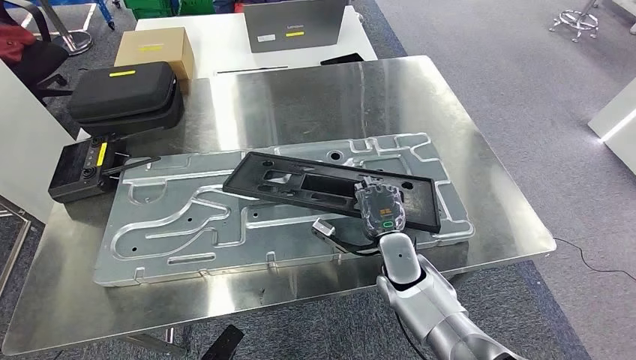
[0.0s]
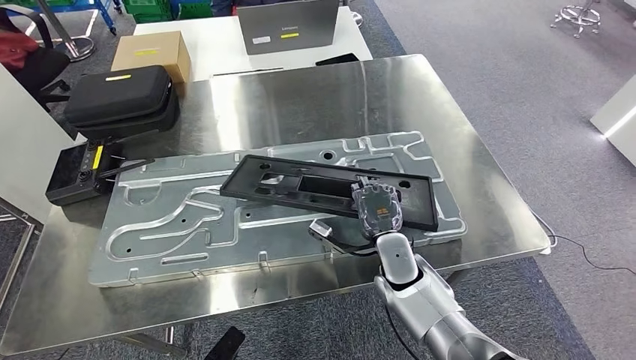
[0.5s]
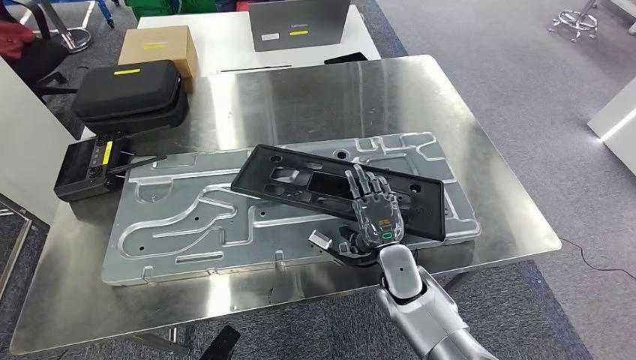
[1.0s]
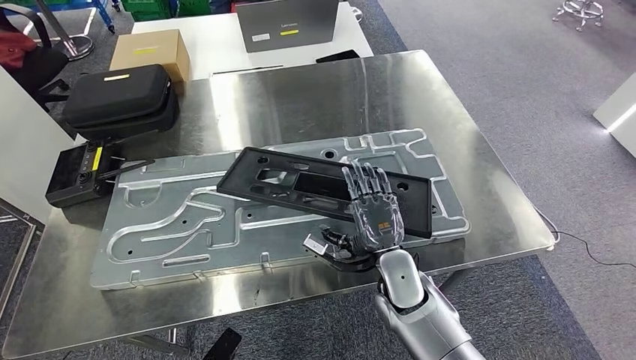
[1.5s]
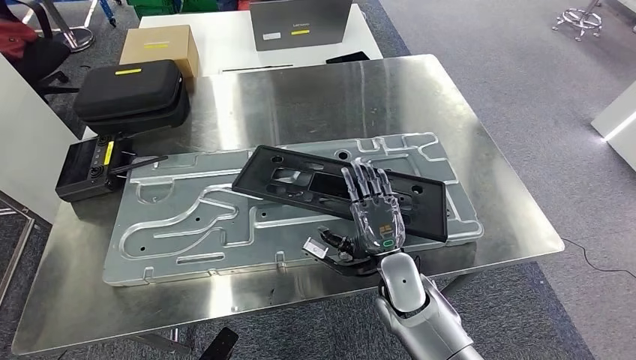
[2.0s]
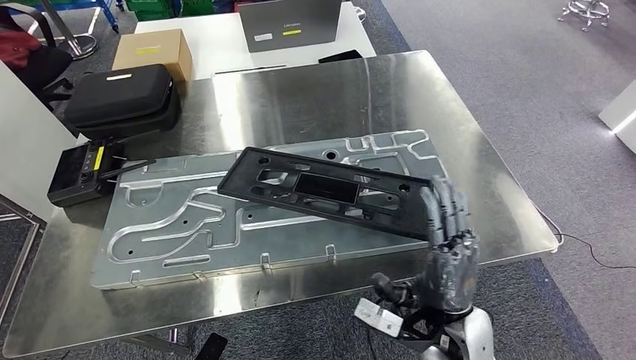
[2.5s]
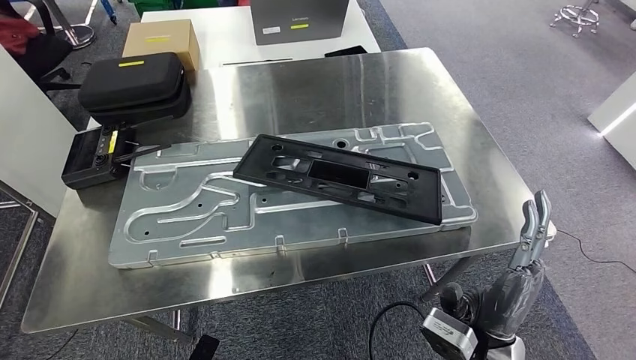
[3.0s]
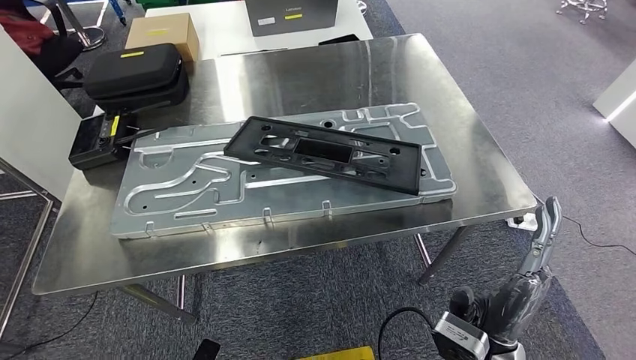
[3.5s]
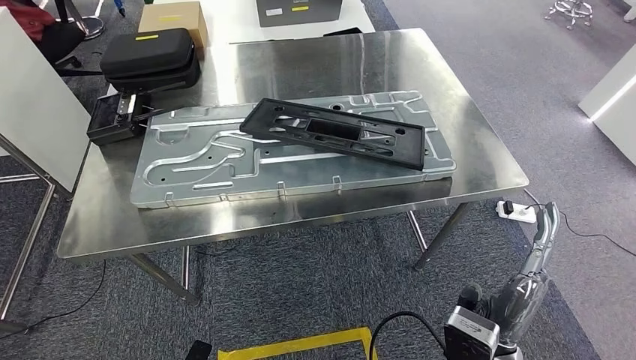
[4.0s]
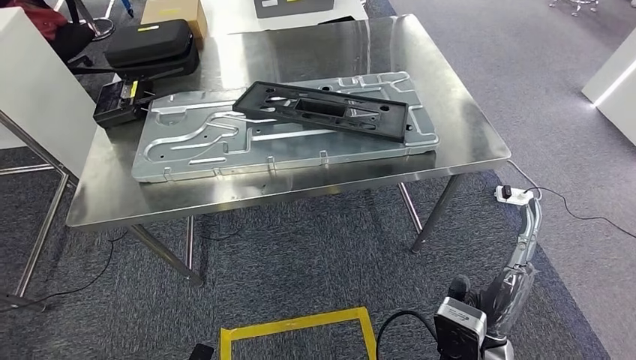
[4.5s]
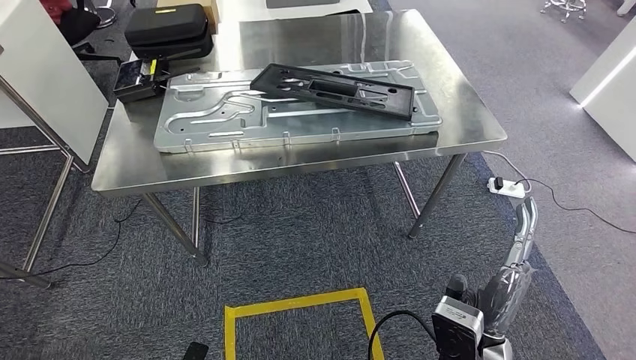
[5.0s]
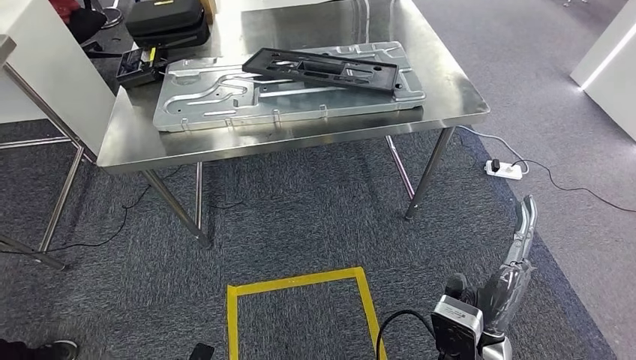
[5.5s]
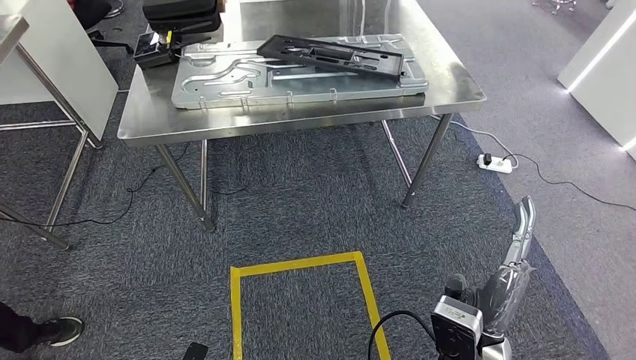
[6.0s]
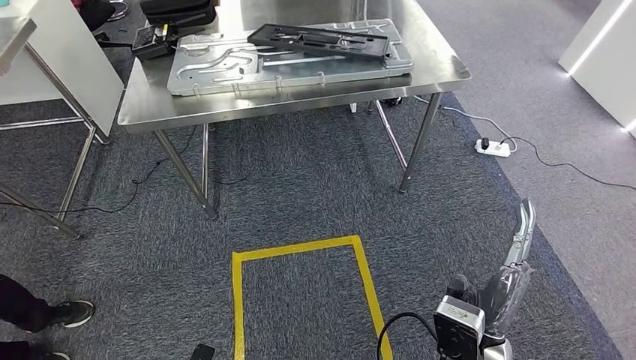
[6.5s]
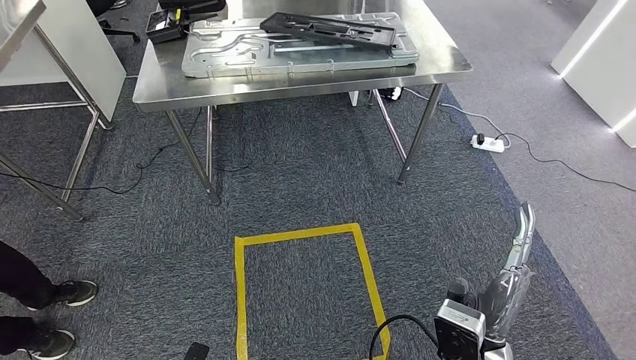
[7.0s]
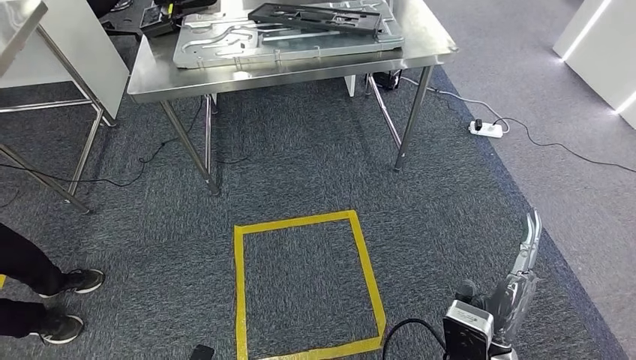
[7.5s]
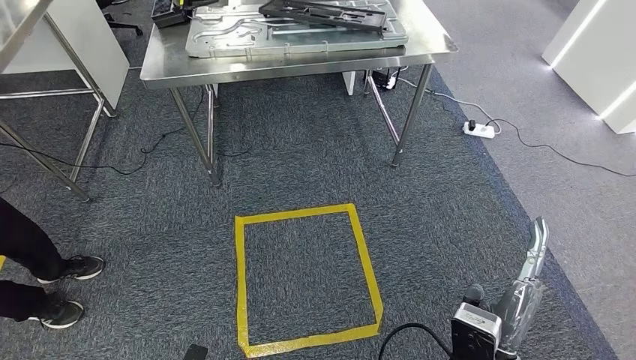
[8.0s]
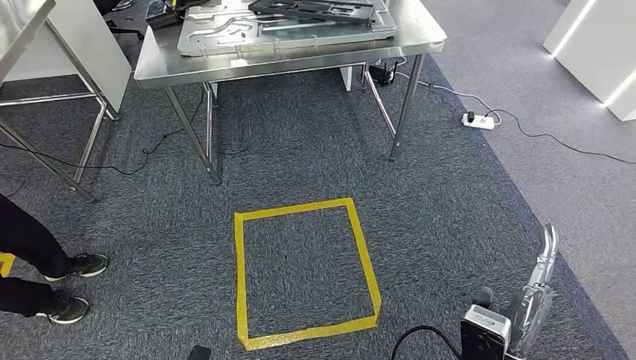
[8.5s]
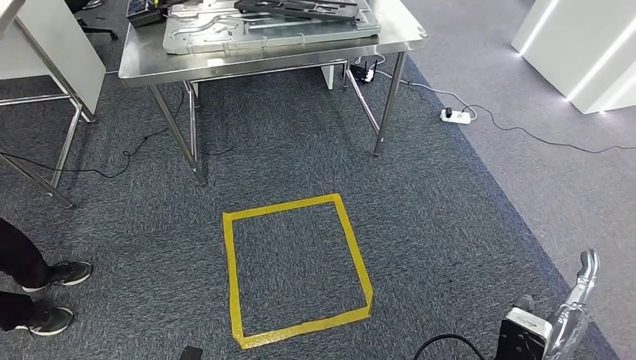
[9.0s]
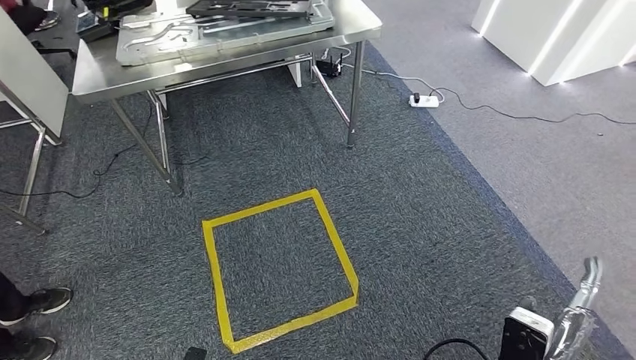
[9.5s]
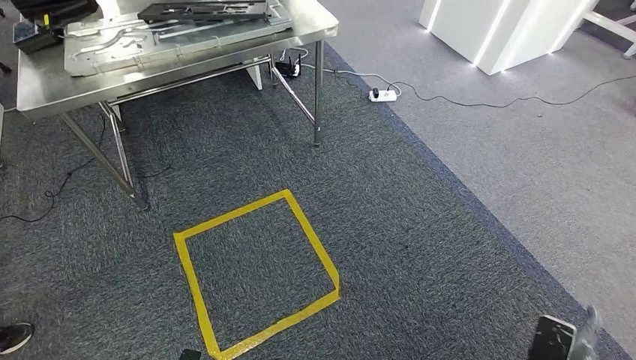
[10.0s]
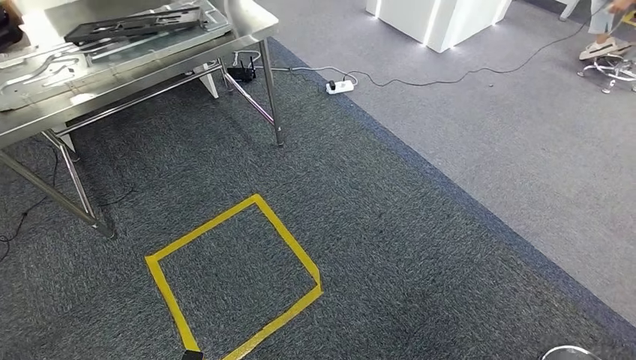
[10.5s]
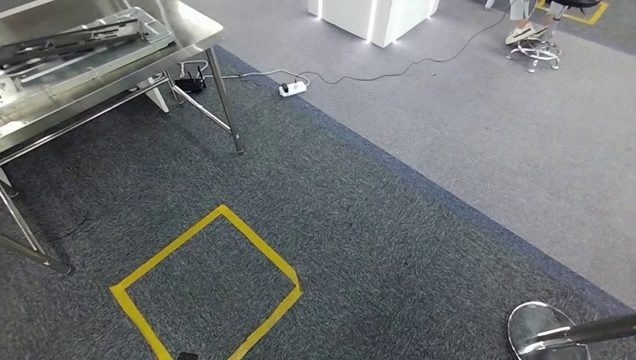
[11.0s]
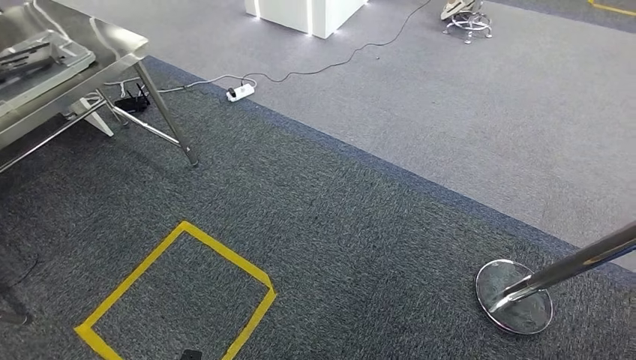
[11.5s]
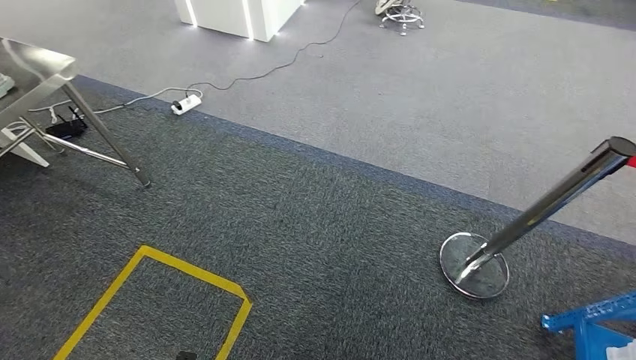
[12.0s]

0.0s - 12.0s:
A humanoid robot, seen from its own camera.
Step, 0.0s - 4.5s: Insert the large material into the corresponding hole on the workbench.

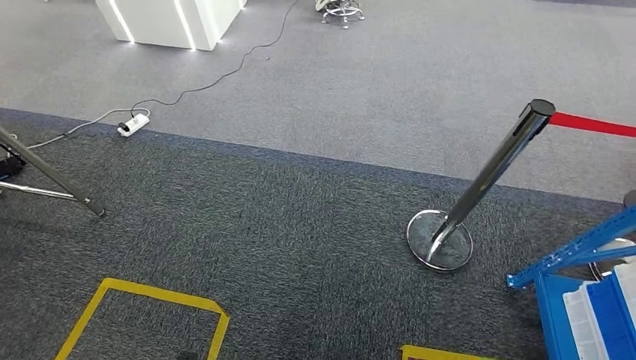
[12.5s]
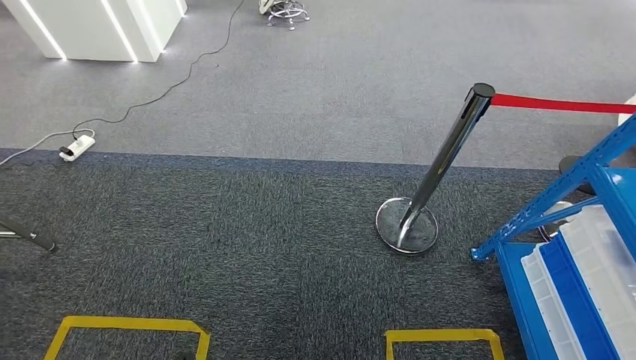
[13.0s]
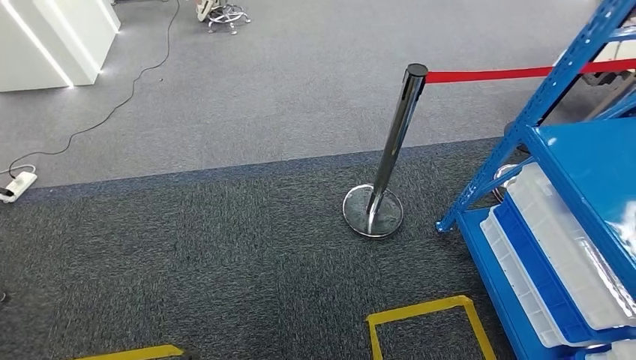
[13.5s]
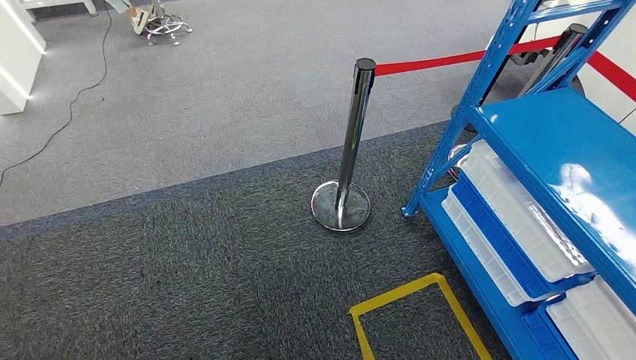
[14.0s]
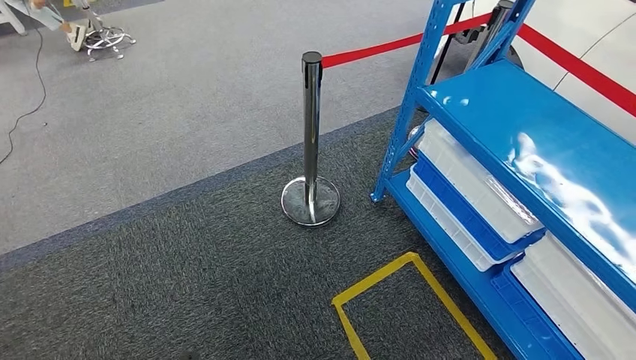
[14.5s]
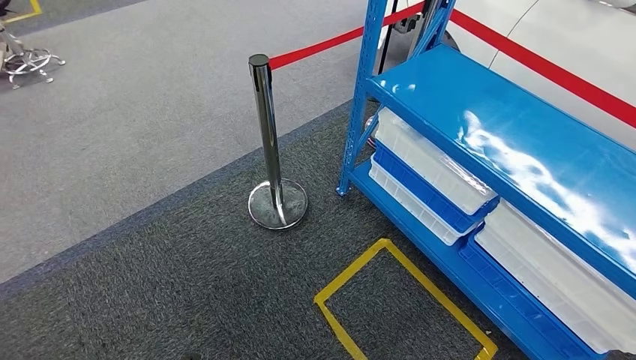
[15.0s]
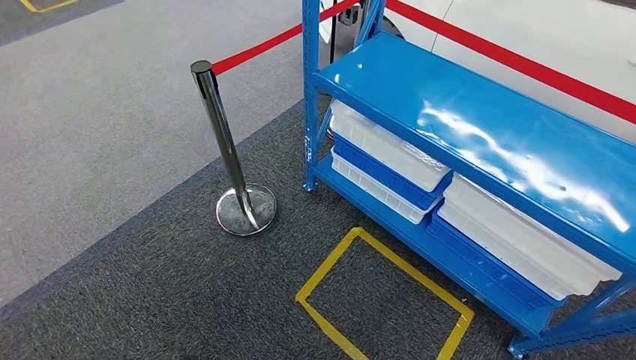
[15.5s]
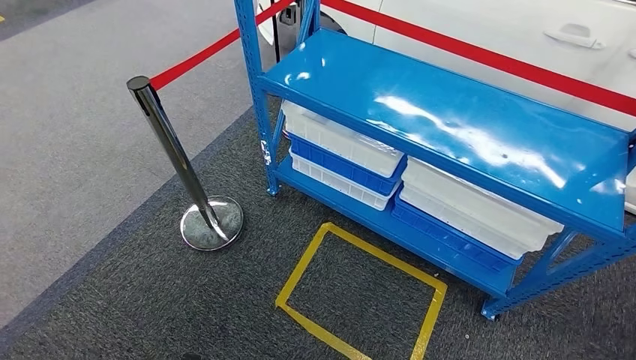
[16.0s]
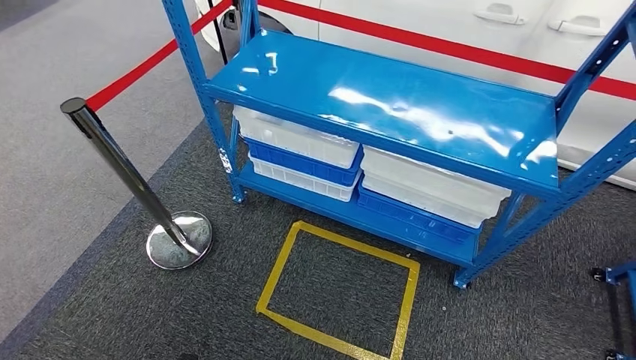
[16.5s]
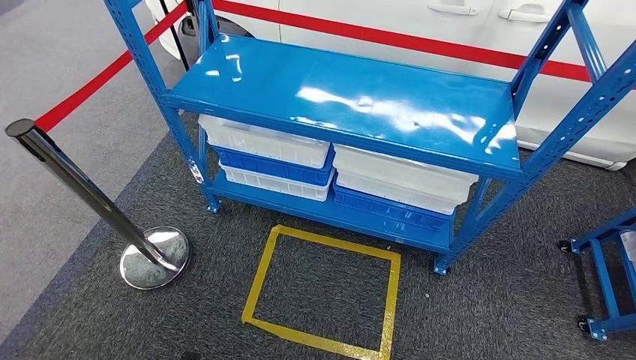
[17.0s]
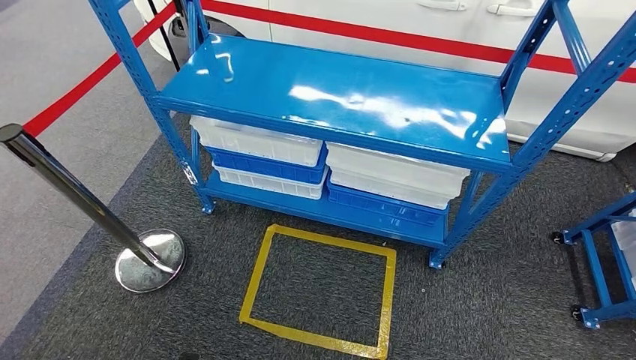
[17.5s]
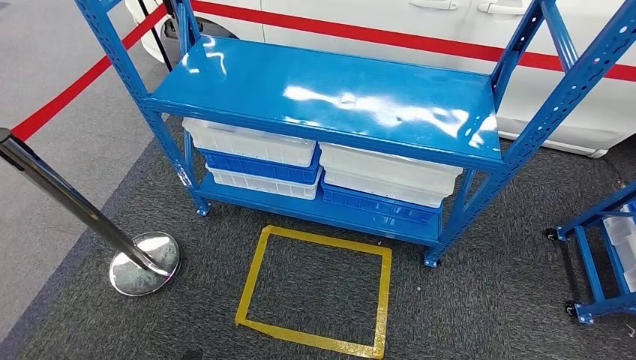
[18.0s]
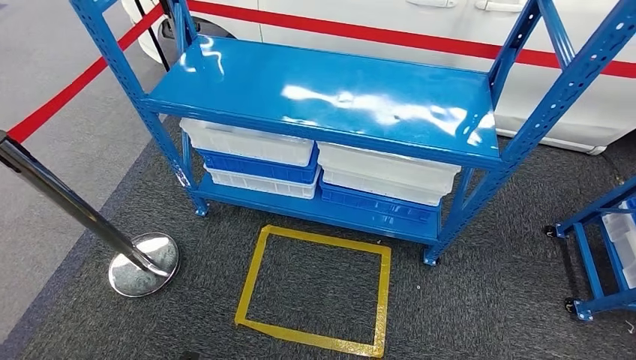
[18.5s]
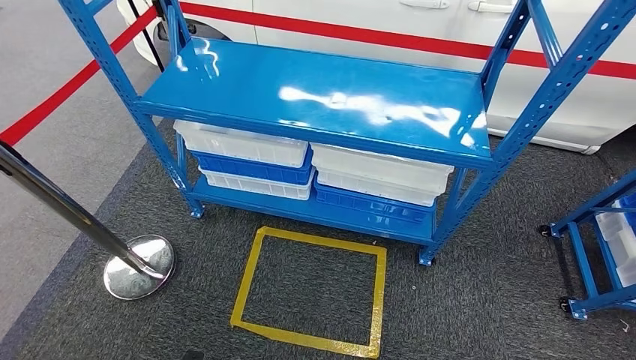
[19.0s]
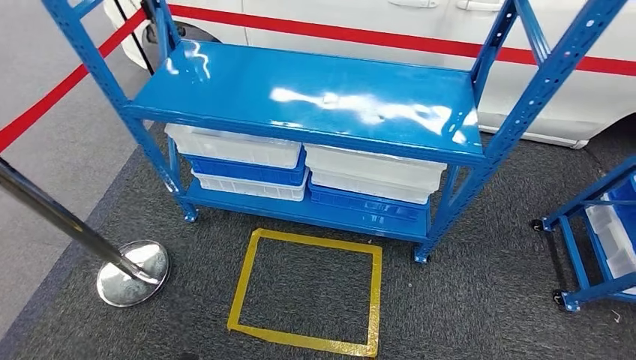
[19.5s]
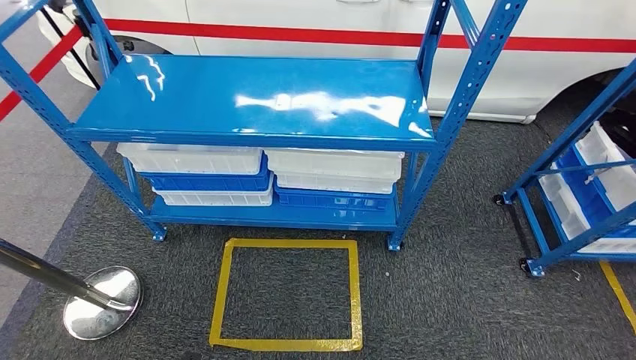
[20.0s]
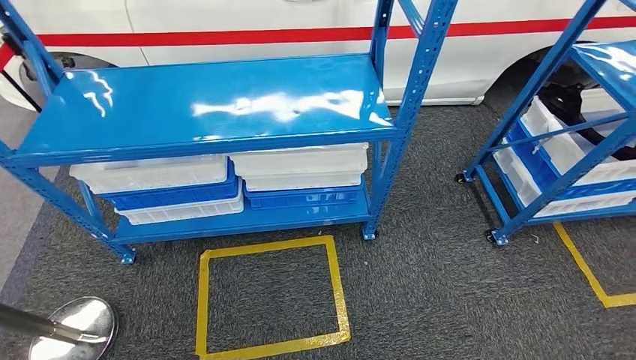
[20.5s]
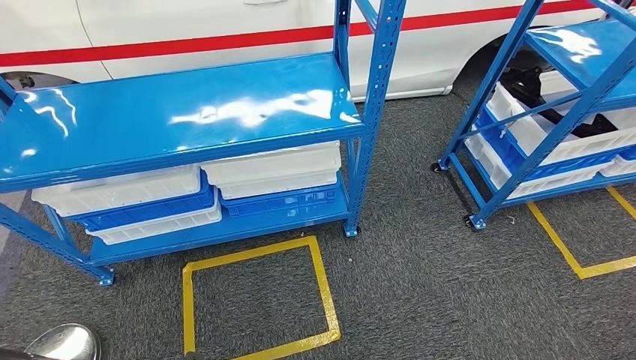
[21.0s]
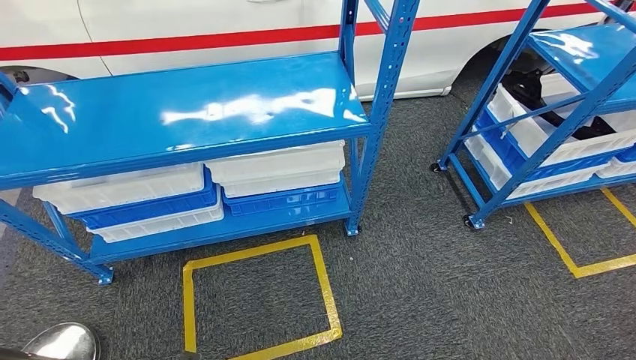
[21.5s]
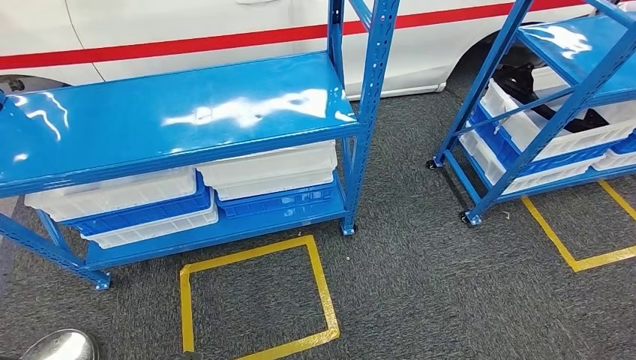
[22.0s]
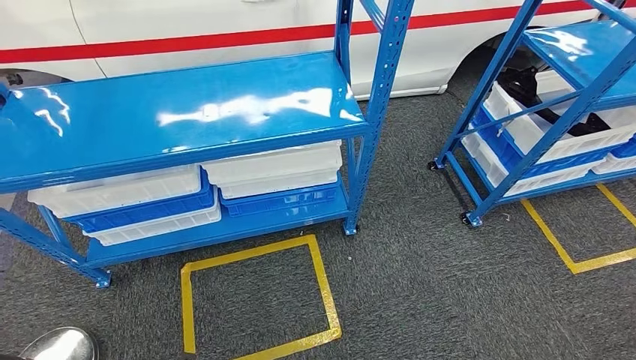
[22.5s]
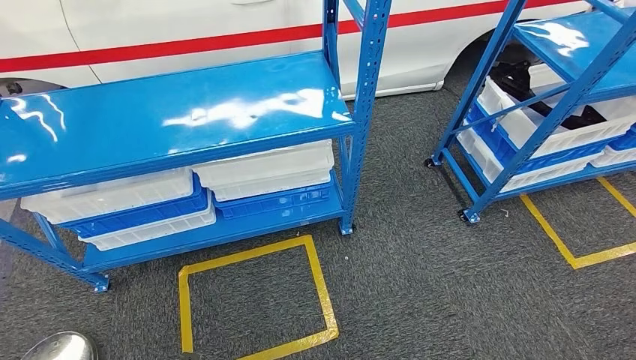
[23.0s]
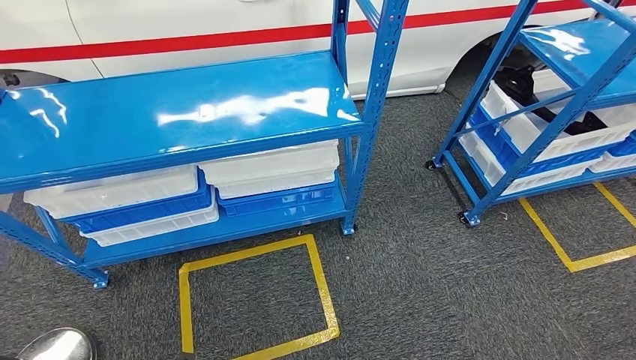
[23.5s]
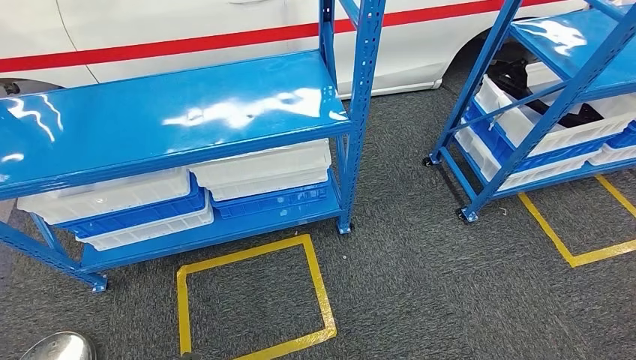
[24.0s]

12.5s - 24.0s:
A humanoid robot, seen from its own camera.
22.0s - 24.0s: Both hands stay about where they are.
